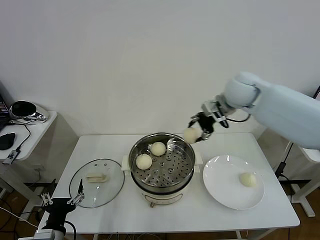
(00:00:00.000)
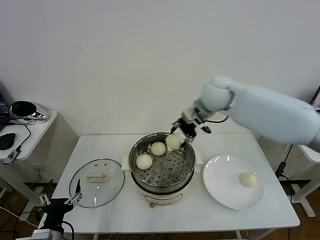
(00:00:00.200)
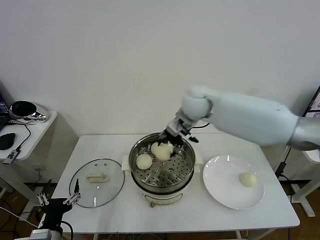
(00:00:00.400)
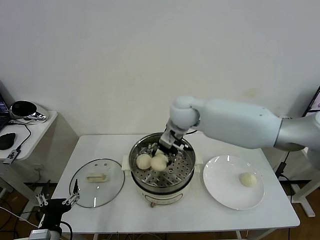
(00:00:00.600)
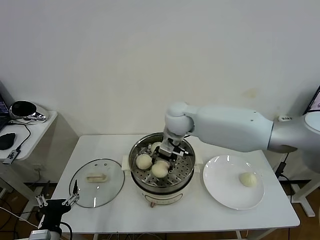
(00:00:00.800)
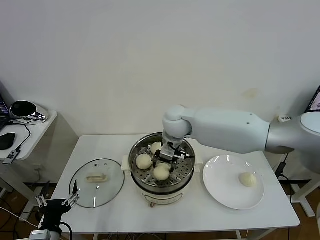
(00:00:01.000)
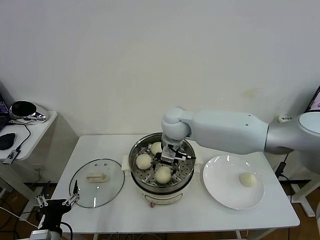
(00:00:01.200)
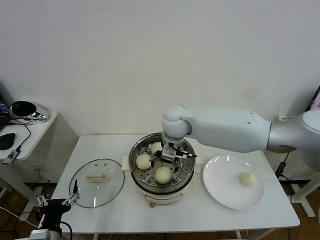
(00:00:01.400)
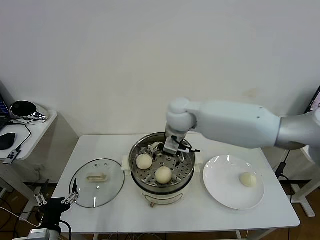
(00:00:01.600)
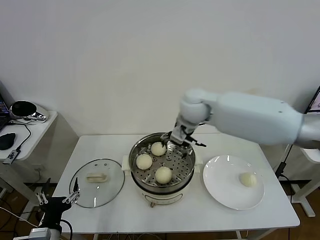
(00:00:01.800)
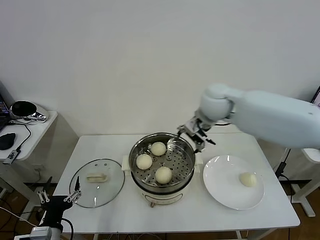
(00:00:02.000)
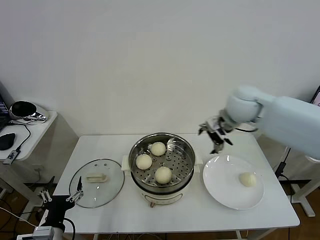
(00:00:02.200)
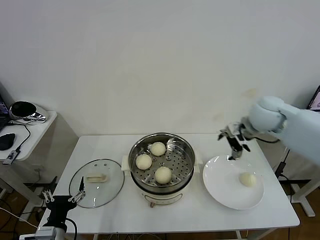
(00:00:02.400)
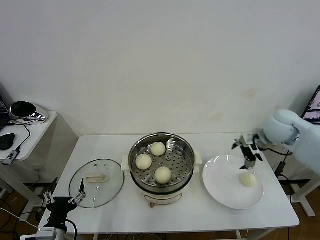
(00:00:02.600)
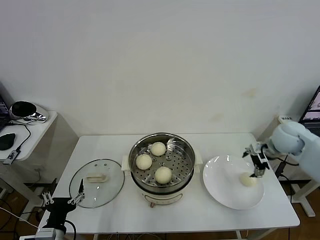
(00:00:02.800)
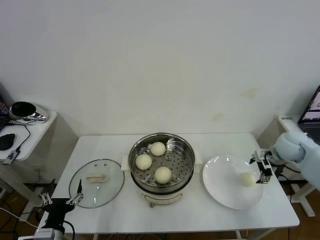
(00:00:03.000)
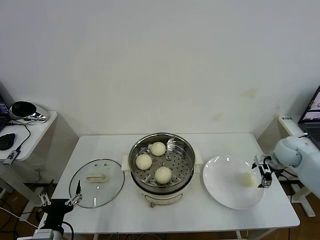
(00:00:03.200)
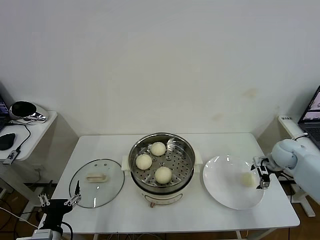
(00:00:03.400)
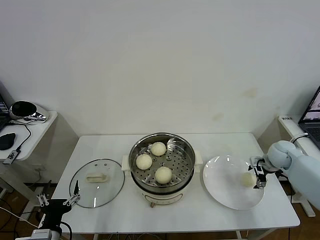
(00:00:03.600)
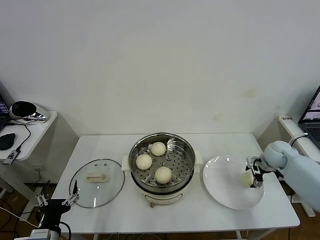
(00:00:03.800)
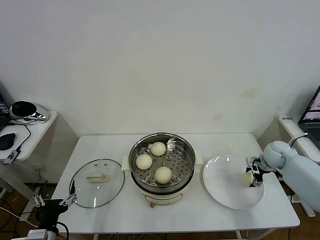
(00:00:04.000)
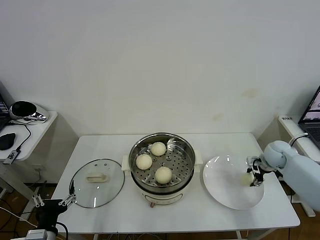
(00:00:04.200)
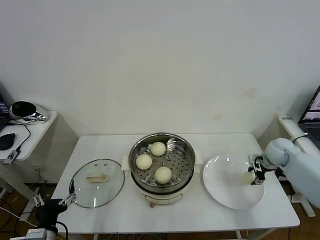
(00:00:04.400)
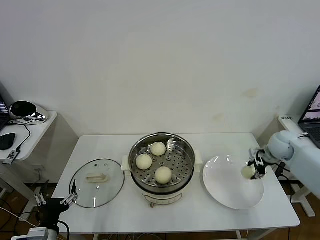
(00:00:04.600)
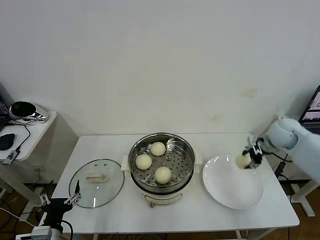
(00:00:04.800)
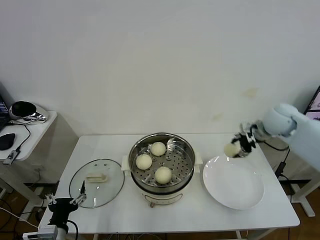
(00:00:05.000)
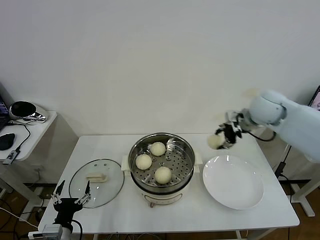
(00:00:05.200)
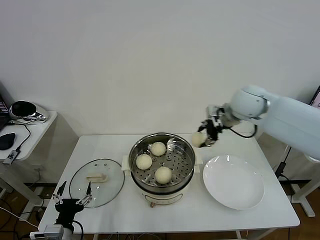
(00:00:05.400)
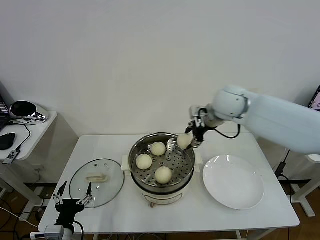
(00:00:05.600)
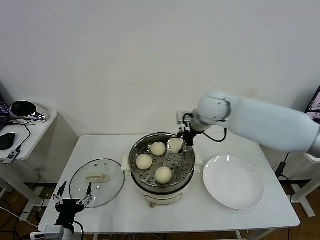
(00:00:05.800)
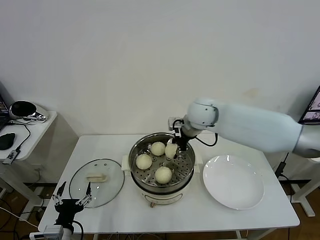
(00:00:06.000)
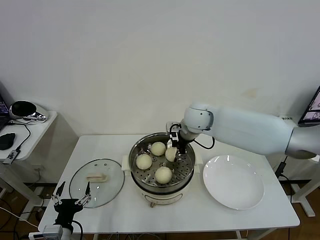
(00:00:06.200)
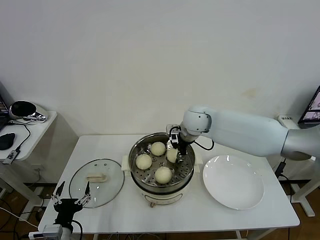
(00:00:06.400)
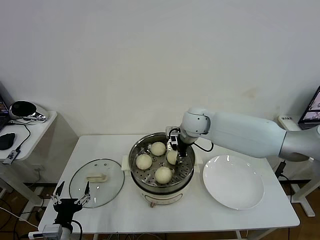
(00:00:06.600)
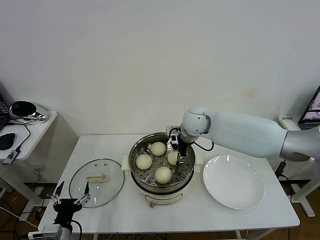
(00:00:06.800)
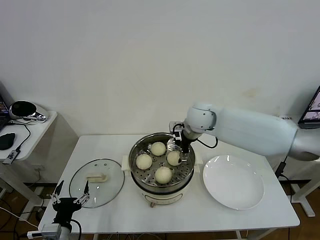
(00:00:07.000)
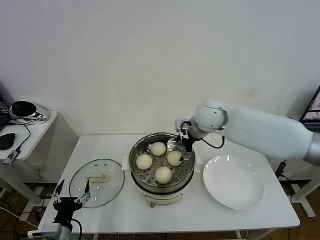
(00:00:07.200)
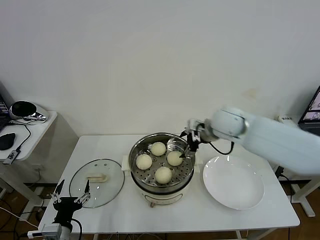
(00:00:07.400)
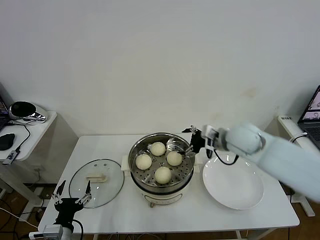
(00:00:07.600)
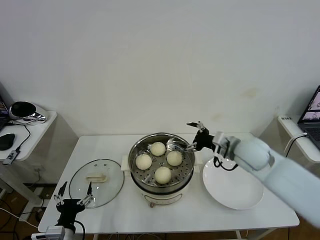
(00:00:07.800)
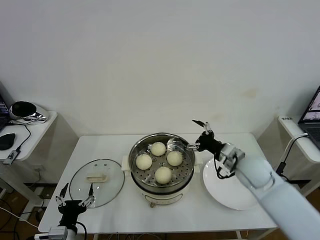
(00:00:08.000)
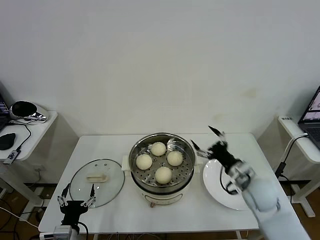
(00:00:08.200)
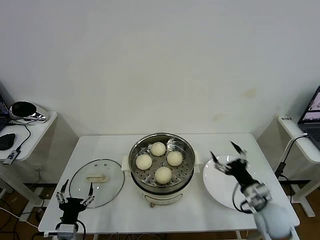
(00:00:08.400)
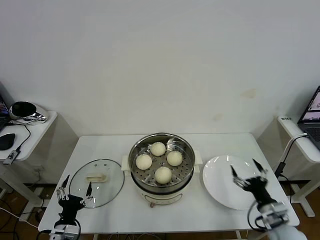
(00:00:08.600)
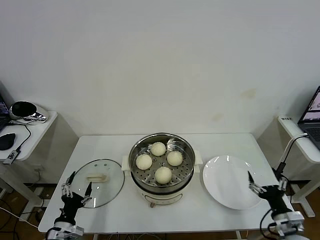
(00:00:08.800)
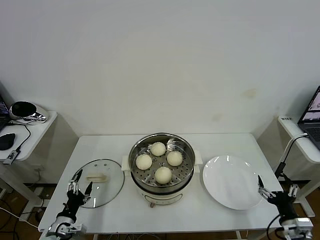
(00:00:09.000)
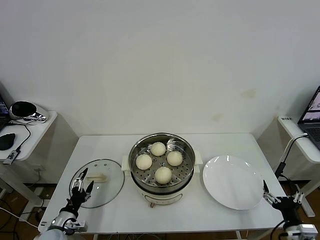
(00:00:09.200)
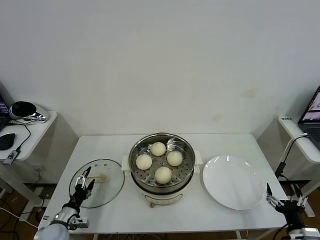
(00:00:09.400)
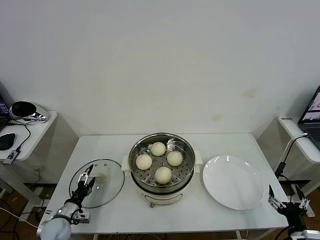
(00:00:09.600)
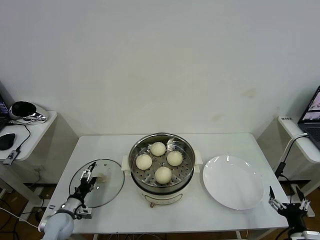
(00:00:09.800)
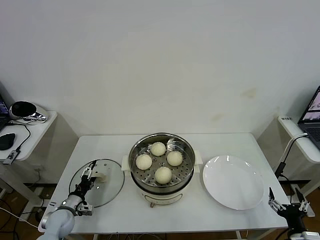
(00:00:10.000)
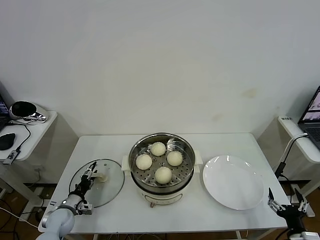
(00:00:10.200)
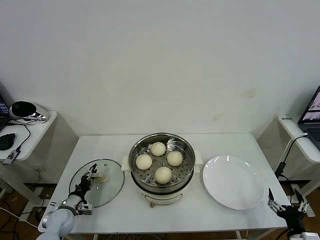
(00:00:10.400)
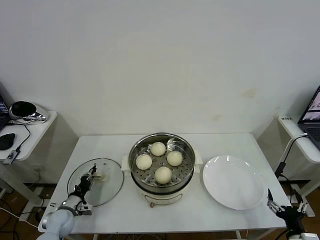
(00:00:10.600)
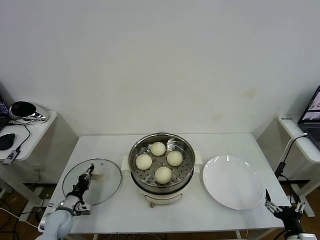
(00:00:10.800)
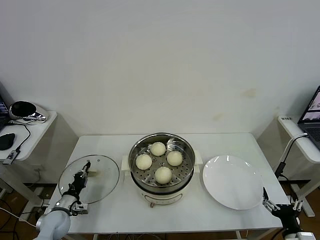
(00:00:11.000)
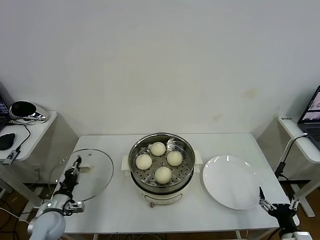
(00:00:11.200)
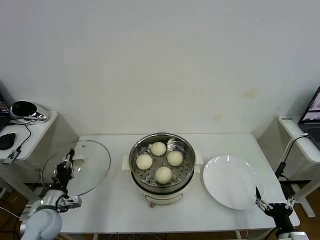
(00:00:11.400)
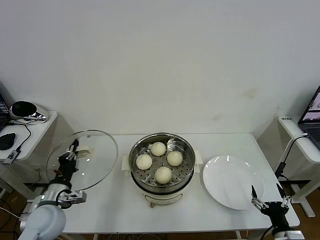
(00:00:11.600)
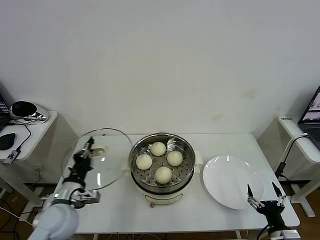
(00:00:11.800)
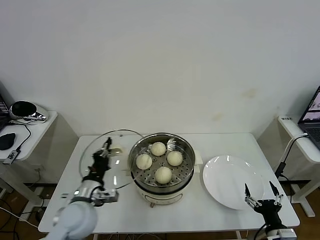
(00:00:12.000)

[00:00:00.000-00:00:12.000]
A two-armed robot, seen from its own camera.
Task of the whole recording: take steamed baozi put them in steamer then cover it.
Step, 00:00:00.000 to 00:00:01.400: Place the baozi on the steamer with right gripper.
Step, 00:00:01.800 to 00:00:04.000: Grasp the baozi in the plate with right gripper.
Step, 00:00:04.200 to 00:00:07.200: Place the baozi on the steamer with right gripper.
Step, 00:00:07.600 to 00:00:11.000: Grasp the pot lid with left gripper.
00:00:00.000 to 00:00:01.600: The right gripper shifts approximately 10 cm to the left, and opens.
00:00:01.600 to 00:00:03.000: The right gripper heads to the right, covering some 35 cm.
00:00:03.000 to 00:00:04.400: The right gripper shifts by some 5 cm, and closes up.
00:00:04.400 to 00:00:06.000: The right gripper heads to the left and upward, covering some 35 cm.
00:00:06.000 to 00:00:07.600: The right gripper is displaced to the right and backward by some 15 cm, and opens up.
00:00:07.600 to 00:00:09.000: The left gripper shifts approximately 10 cm downward and to the left. The right gripper heads backward, downward and to the right, covering roughly 40 cm.
00:00:09.000 to 00:00:10.400: The left gripper goes approximately 10 cm forward, and closes up.
00:00:10.400 to 00:00:12.000: The left gripper travels upward and to the right by roughly 25 cm, and closes up. Meanwhile the right gripper goes approximately 5 cm to the left.

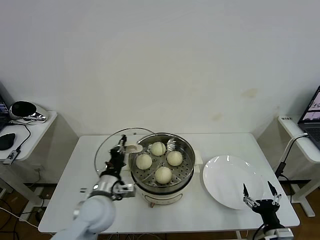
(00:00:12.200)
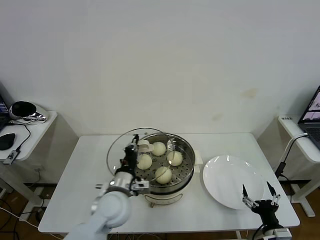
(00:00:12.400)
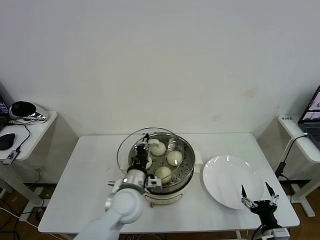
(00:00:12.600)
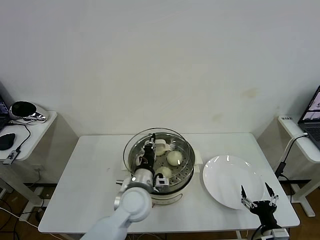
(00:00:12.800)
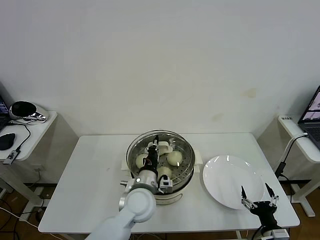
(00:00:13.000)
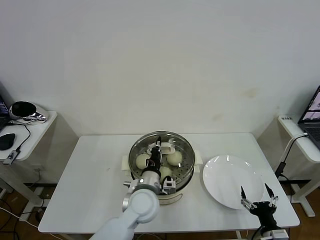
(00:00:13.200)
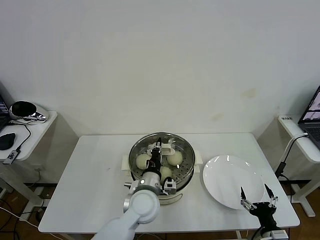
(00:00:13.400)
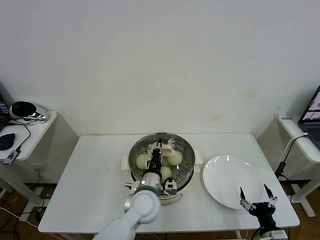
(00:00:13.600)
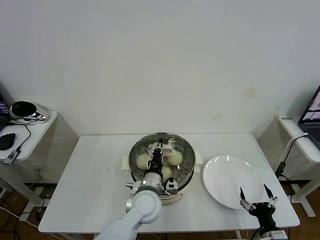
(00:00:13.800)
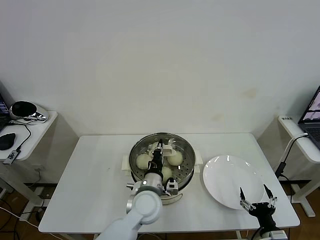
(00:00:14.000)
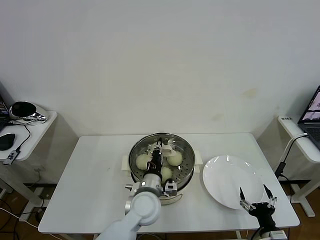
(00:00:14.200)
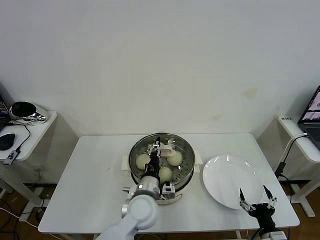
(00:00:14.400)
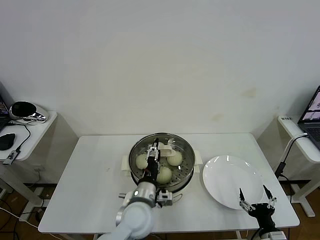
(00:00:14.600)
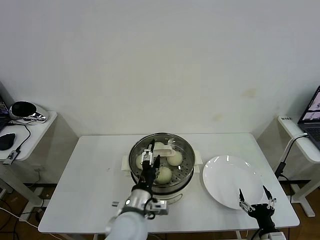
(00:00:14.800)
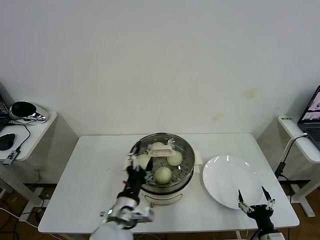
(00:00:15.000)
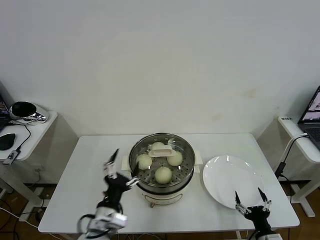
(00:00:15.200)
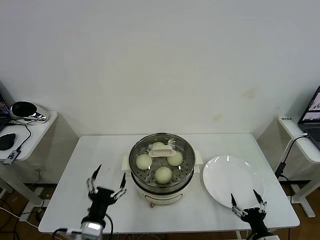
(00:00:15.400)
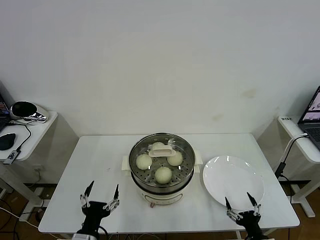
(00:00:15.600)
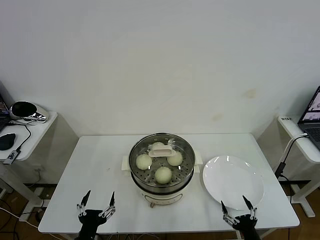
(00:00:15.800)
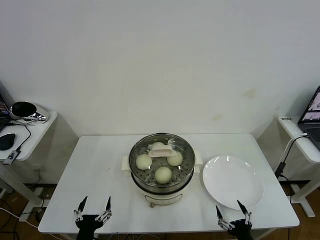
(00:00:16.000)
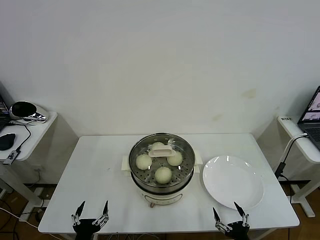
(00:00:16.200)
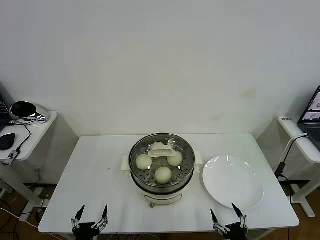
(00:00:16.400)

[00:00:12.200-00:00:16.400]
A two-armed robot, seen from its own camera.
Task of the whole recording: take steamed baozi put them in steamer then cover it.
Step, 00:00:12.200 to 00:00:15.000: Place the pot lid on the steamer with left gripper.
00:00:12.200 to 00:00:13.600: The left gripper heads to the right, covering roughly 15 cm.
00:00:13.600 to 00:00:15.000: The left gripper shifts roughly 10 cm backward and to the left, and opens its fingers.
00:00:15.000 to 00:00:16.400: The left gripper is displaced to the left, backward and downward by some 25 cm; the right gripper moves to the left, roughly 5 cm.
